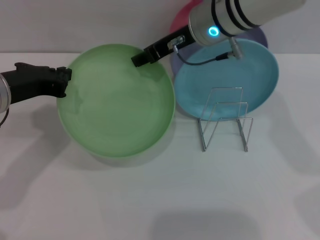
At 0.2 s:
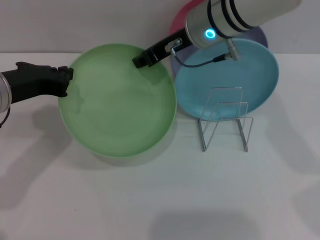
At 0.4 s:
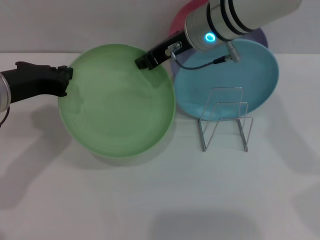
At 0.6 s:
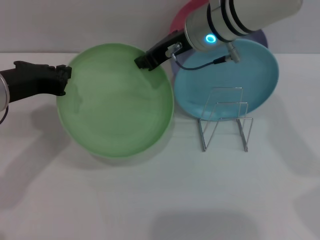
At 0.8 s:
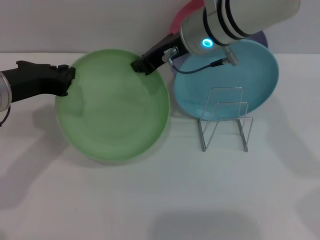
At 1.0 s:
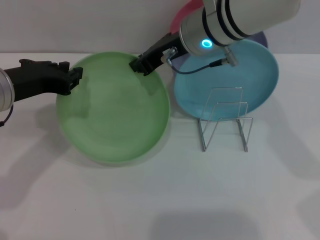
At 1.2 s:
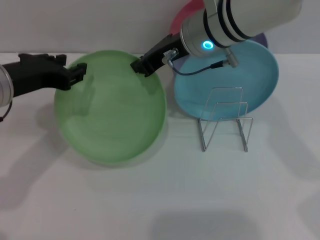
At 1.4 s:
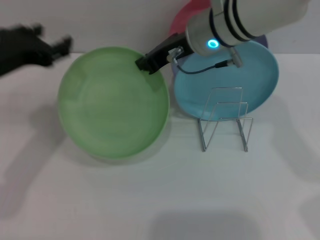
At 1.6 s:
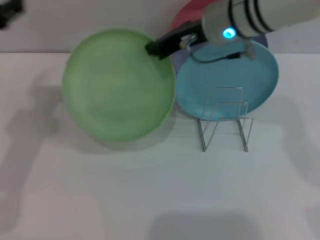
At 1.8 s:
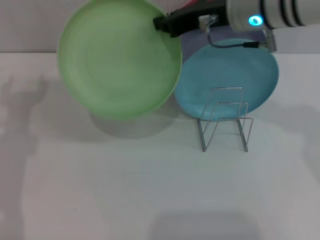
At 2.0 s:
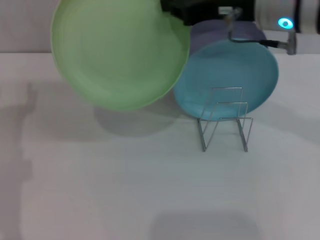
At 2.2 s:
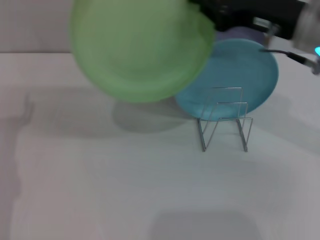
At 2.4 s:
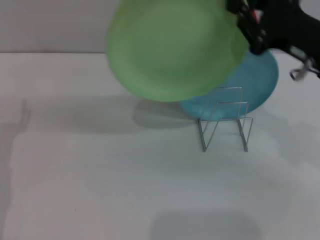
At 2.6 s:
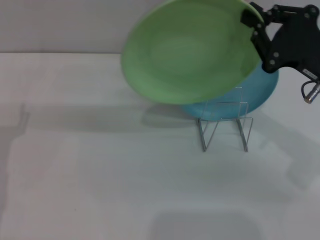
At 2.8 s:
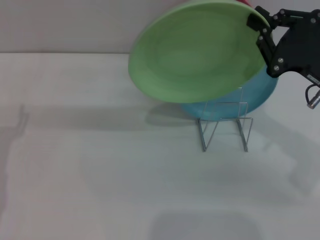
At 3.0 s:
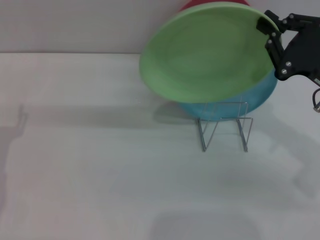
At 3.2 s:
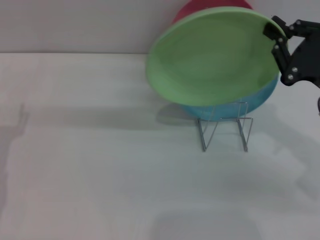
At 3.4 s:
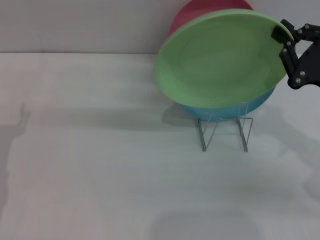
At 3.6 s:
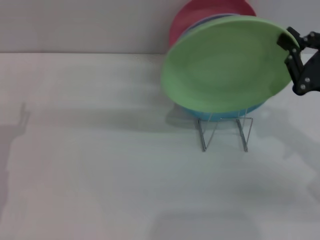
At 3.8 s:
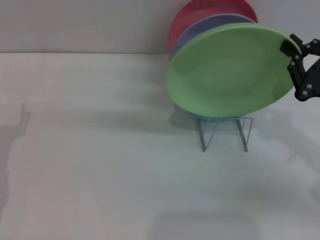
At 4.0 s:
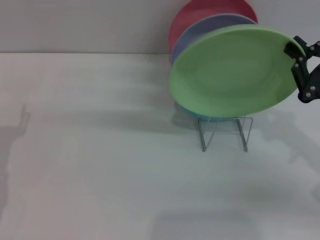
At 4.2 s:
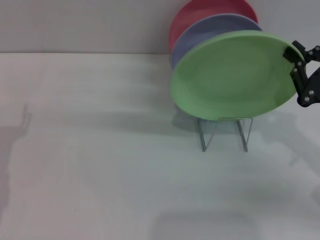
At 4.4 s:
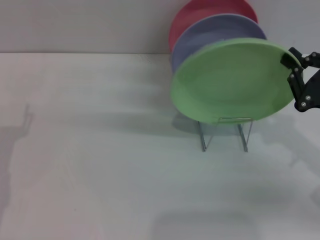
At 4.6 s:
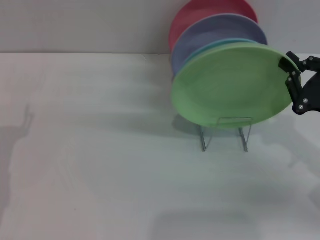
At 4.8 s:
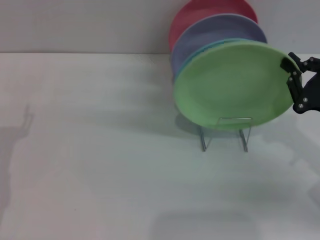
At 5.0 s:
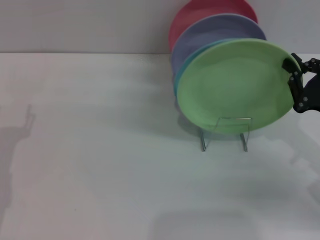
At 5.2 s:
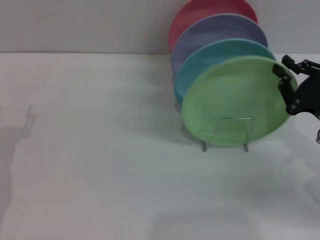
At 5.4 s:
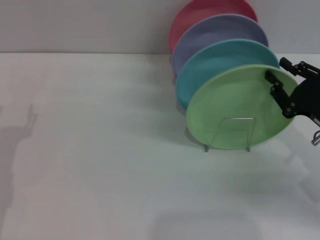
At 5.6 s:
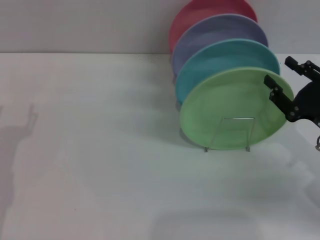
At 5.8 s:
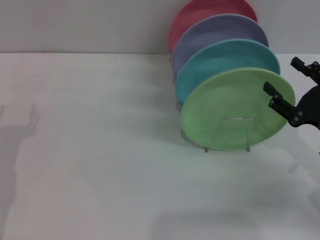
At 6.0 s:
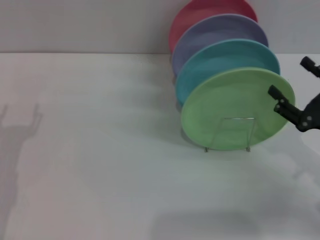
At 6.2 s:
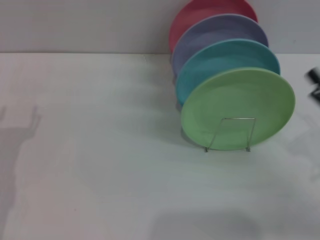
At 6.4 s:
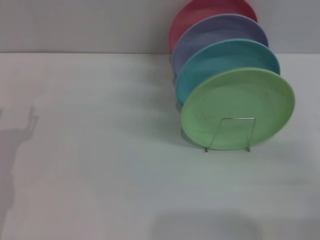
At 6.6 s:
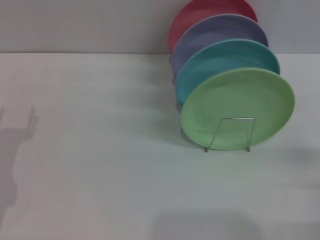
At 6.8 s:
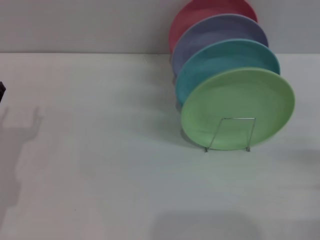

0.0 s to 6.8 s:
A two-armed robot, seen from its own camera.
Task of the whole recording: Grip the plate with one hand, pass it to the other, then set it on the shelf.
Step, 2.0 to 5.6 s: Place the plate on the shelf with the right gripper.
0.0 to 1.4 s: The right gripper closes up. The left gripper opens up.
1.4 to 2.8 s: The right gripper goes approximately 20 cm to the right and backward, while the left gripper goes approximately 15 cm downward, backward and to the left, and opens up.
2.8 to 4.0 s: The right gripper changes place by some 5 cm.
4.0 to 5.4 s: The grippers move only a little.
5.4 to 6.8 s: The right gripper heads backward and to the right, covering approximately 10 cm, and opens its fingers.

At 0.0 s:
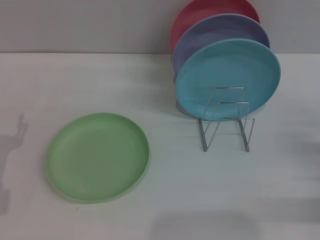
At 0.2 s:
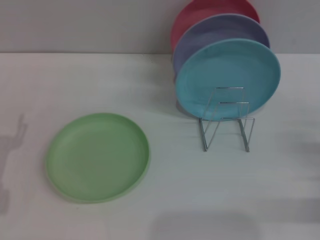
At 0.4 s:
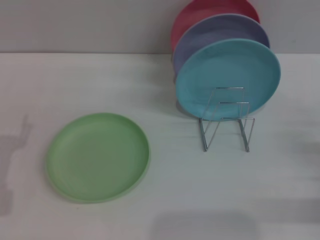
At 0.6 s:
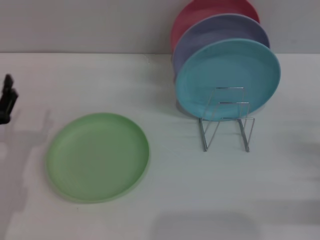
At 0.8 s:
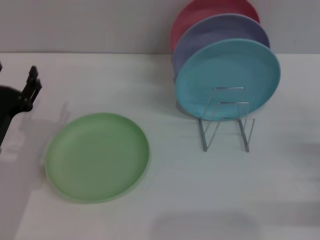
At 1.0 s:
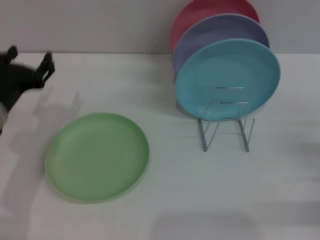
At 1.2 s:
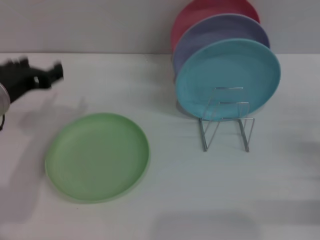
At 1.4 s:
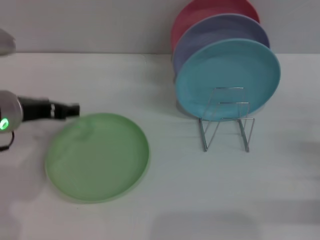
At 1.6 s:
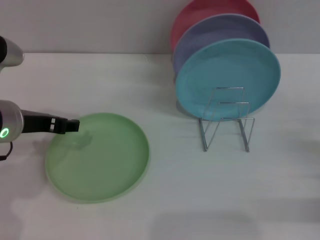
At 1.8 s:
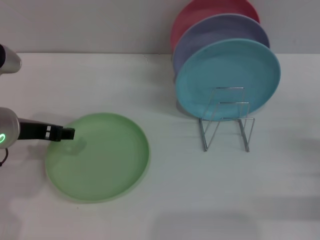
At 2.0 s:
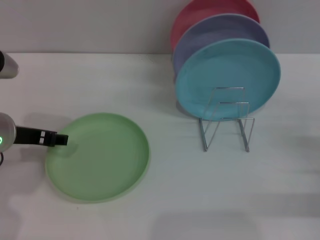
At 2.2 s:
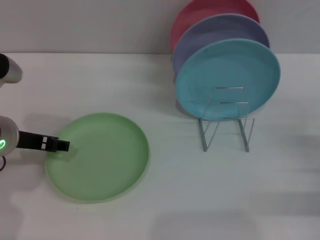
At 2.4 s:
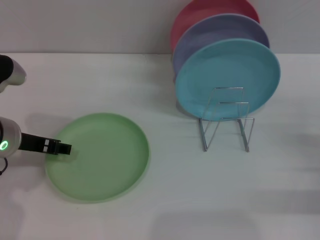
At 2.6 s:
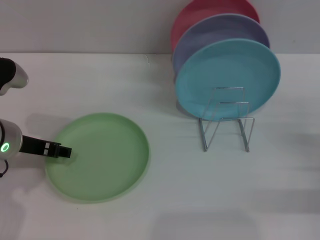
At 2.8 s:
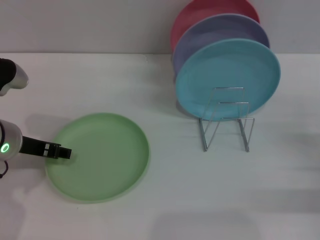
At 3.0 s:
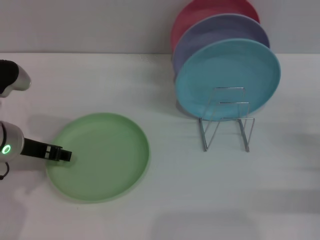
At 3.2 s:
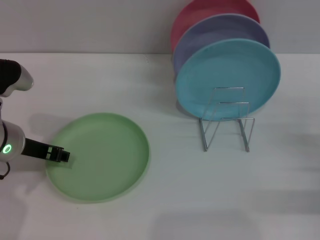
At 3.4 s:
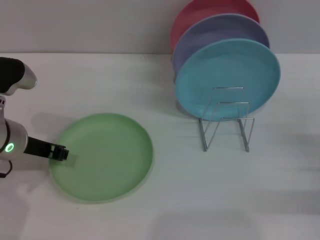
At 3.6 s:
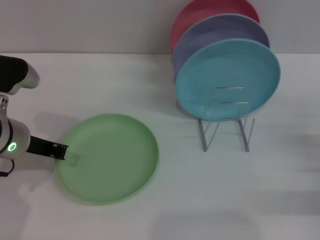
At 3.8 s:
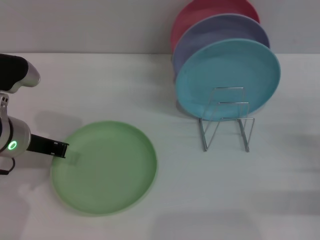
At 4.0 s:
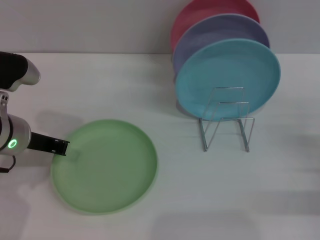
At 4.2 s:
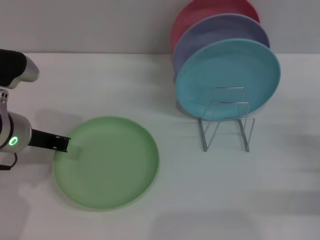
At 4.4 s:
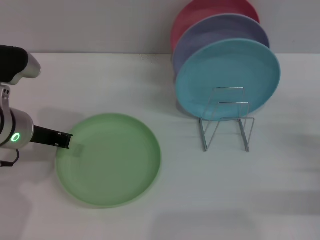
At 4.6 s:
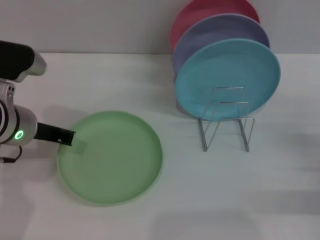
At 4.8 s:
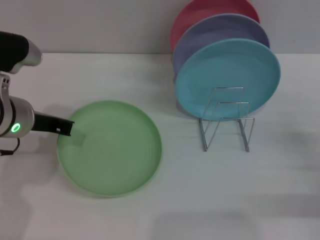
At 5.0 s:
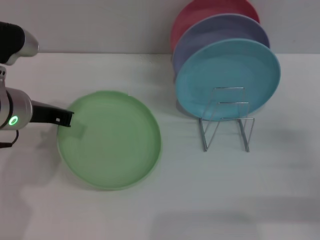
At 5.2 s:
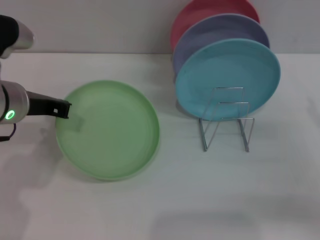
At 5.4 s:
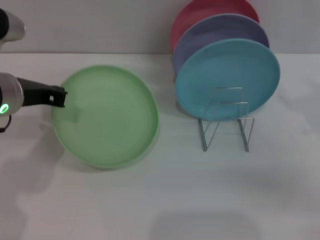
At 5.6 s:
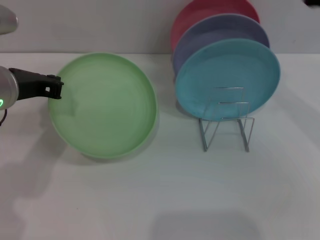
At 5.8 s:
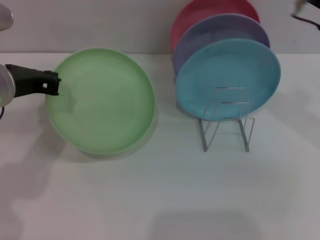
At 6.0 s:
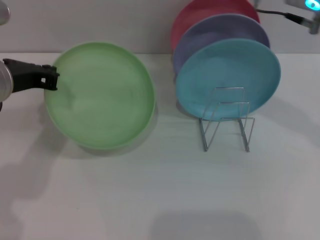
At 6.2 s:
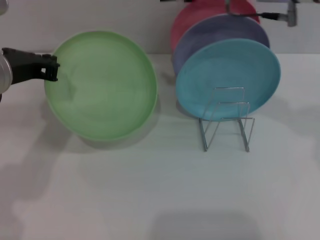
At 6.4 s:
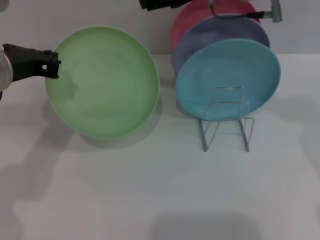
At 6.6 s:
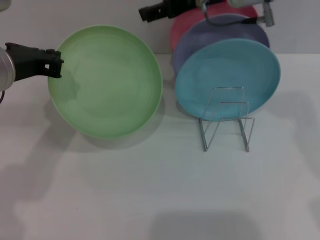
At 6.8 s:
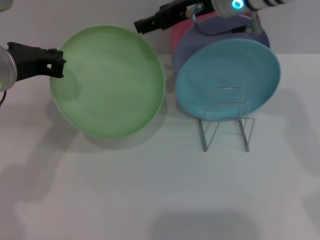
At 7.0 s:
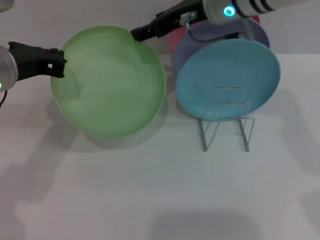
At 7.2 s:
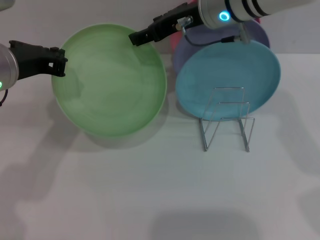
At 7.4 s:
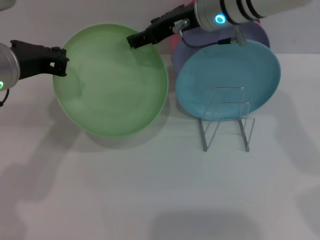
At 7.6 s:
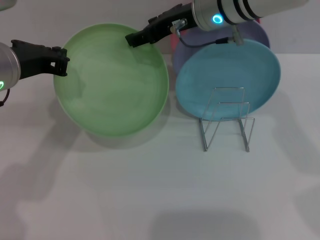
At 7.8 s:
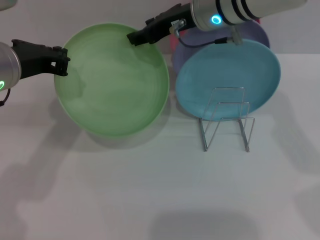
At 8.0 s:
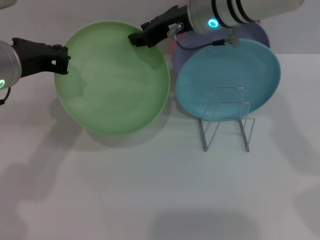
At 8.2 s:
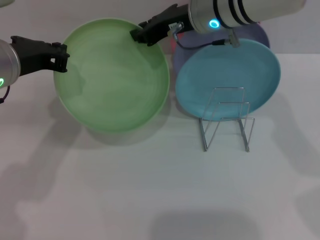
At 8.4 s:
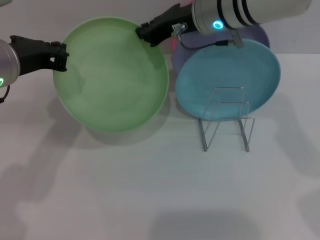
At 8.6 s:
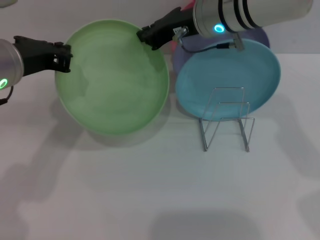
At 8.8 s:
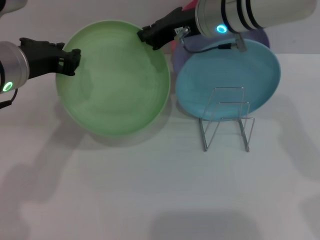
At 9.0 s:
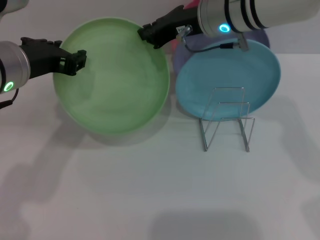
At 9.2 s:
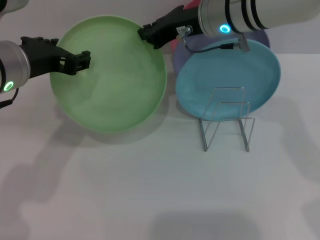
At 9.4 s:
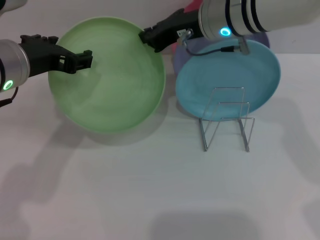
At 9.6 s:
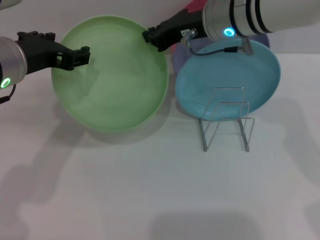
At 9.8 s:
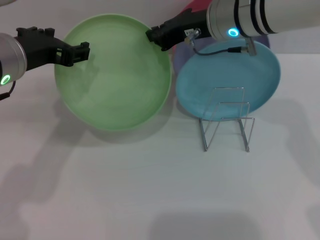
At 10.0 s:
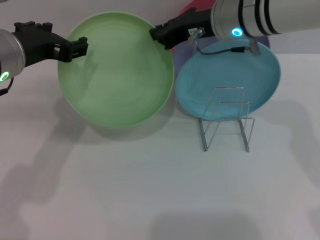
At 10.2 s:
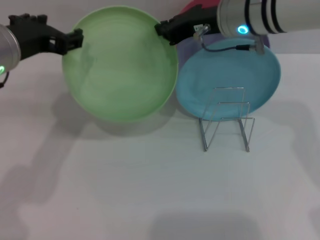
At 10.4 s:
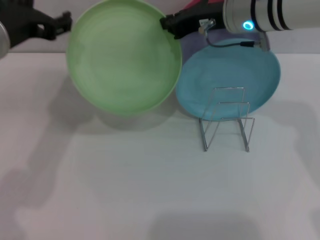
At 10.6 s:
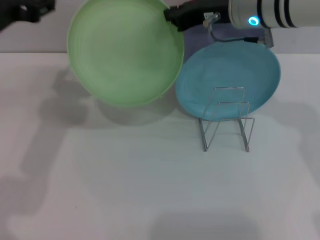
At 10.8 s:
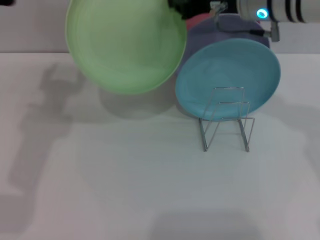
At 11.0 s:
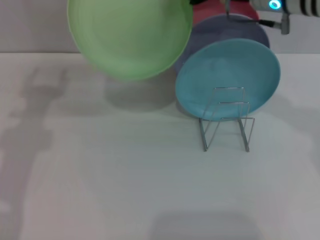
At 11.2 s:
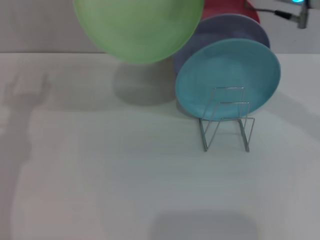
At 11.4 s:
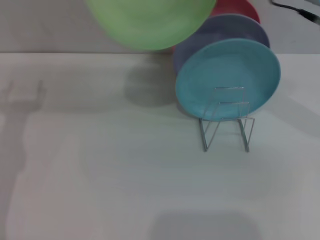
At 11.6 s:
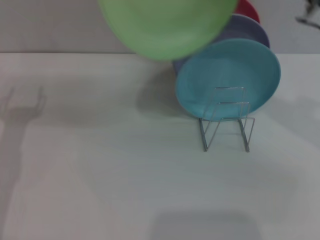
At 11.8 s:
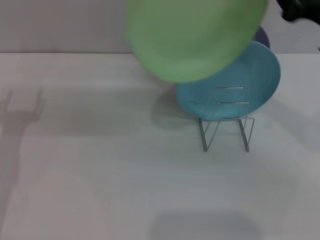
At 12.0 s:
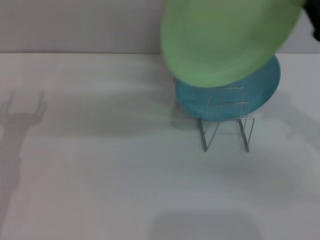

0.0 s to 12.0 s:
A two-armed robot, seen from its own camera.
Task of the whole recording: Grip the plate with one hand, pass it to the other, then set it on the shelf.
Step, 0.0 to 4.8 s: Pick up the plate with the left gripper.
Step, 5.0 to 10.8 s: Pass the plate from the left gripper to the right gripper.
0.0 to 1.6 s: The left gripper travels upward, to the right and forward by roughly 15 cm.
1.6 to 3.0 s: The grippers make only small movements.
3.0 to 4.4 s: The left gripper closes its fingers.
4.4 to 6.0 s: The right gripper goes roughly 35 cm upward, to the left and forward. The left gripper shifts some 5 cm upward.
6.0 to 7.6 s: The right gripper heads to the left and forward, covering roughly 10 cm.
7.6 to 9.0 s: The right gripper closes; the left gripper opens.
9.0 to 10.4 s: The left gripper opens.
10.4 to 12.0 s: The left gripper moves downward and to the left, approximately 15 cm; the right gripper travels to the right and backward by roughly 20 cm.

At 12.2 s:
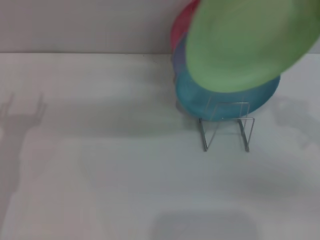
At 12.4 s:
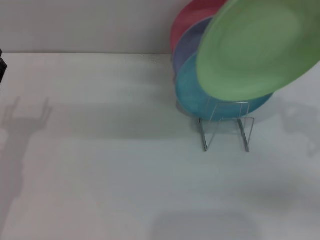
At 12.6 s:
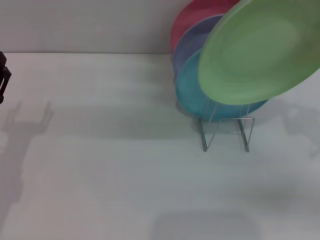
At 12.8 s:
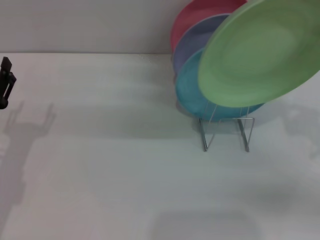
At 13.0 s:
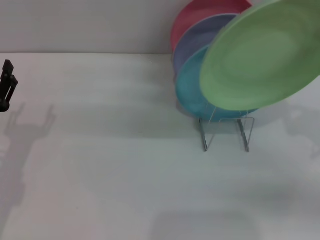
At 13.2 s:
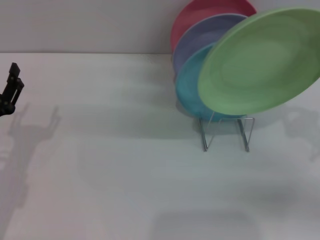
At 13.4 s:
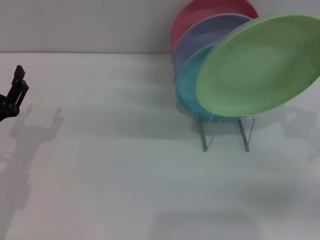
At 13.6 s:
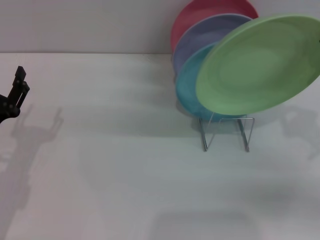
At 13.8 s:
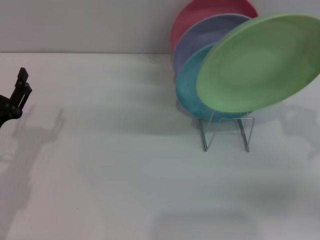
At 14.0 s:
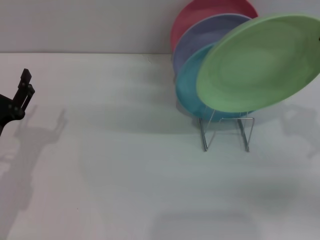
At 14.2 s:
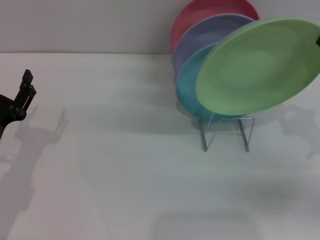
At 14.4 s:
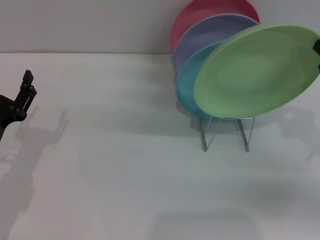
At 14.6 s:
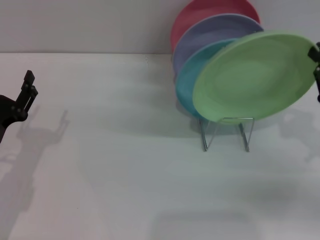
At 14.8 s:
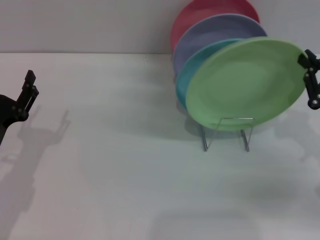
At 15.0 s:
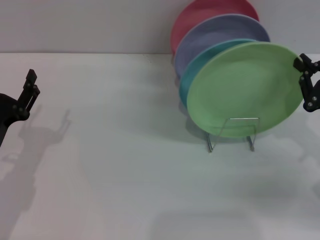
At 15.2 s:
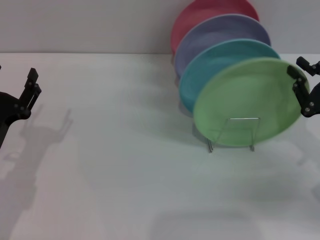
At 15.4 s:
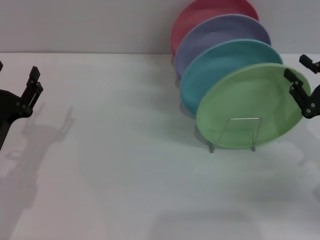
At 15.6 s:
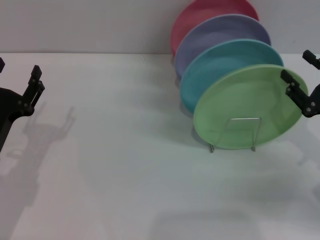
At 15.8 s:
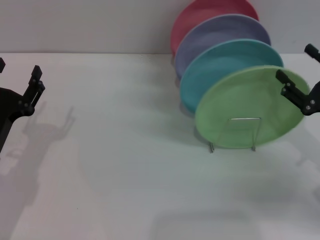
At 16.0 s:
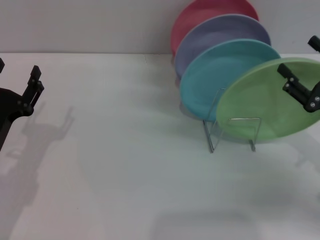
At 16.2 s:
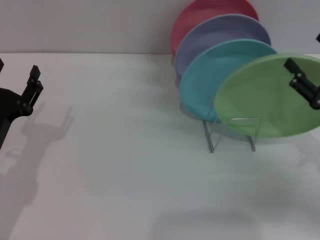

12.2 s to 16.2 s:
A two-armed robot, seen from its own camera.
Task of the whole recording: Grip the plate with one hand, pass it to the other, then set it on the shelf.
Step, 12.2 to 15.8 s: Place the plate on the shelf with the right gripper.
12.2 to 13.6 s: The grippers stay close to where they were, moving slightly.
13.6 to 14.8 s: The grippers move only a little.
14.8 to 16.2 s: The right gripper opens its fingers.
